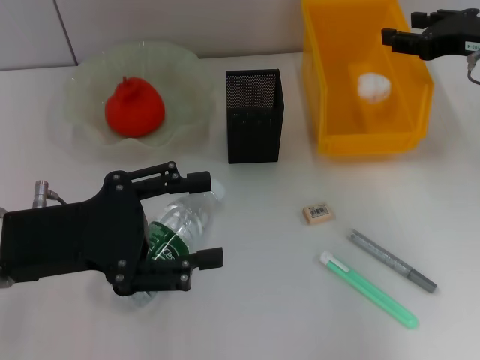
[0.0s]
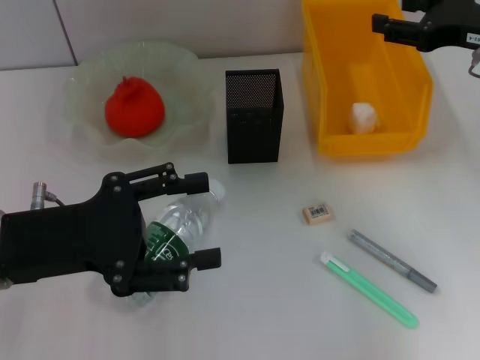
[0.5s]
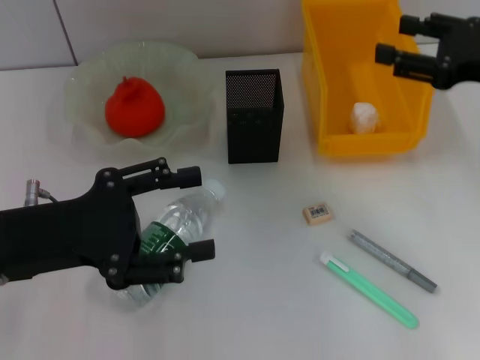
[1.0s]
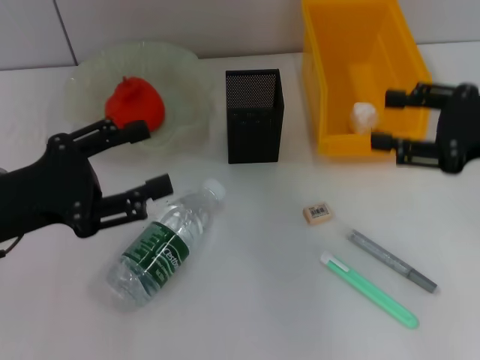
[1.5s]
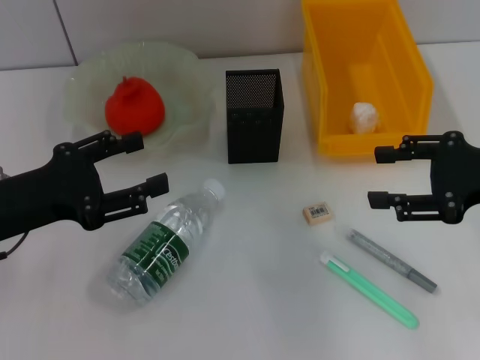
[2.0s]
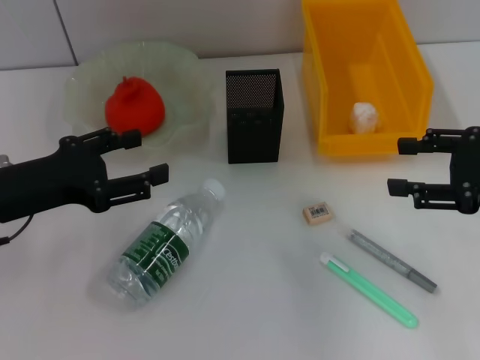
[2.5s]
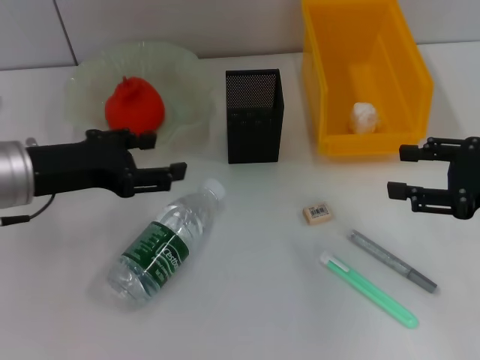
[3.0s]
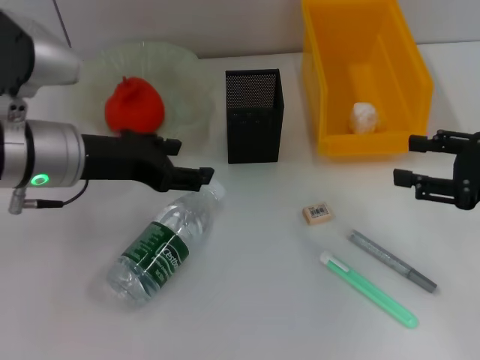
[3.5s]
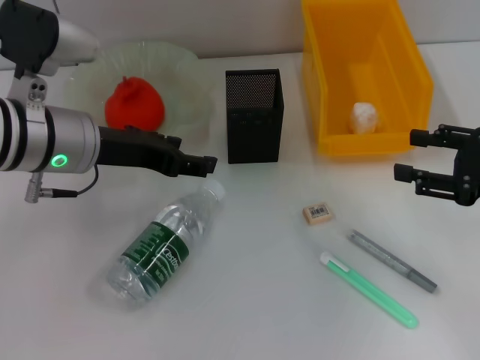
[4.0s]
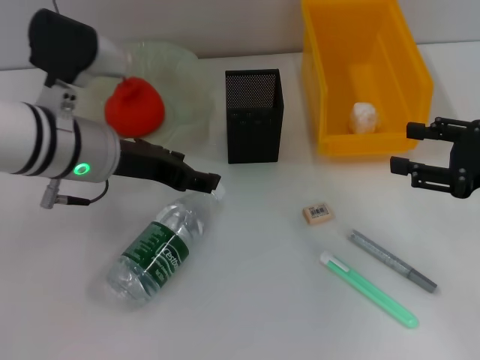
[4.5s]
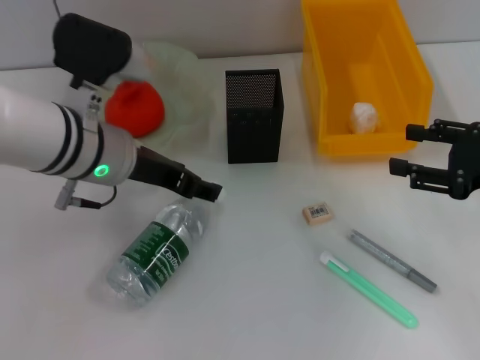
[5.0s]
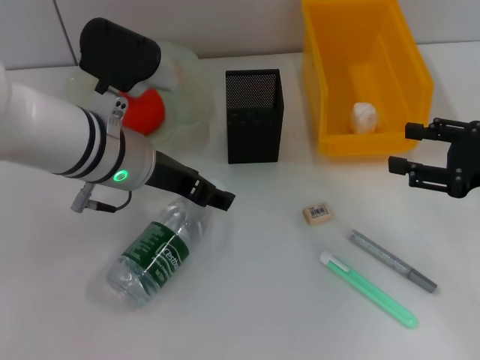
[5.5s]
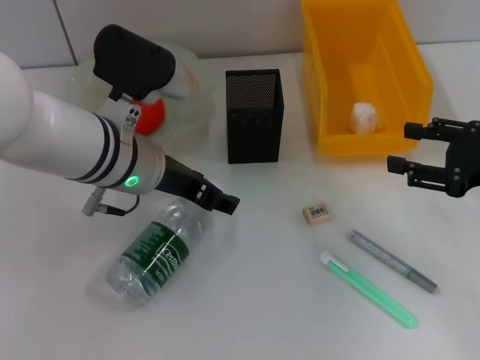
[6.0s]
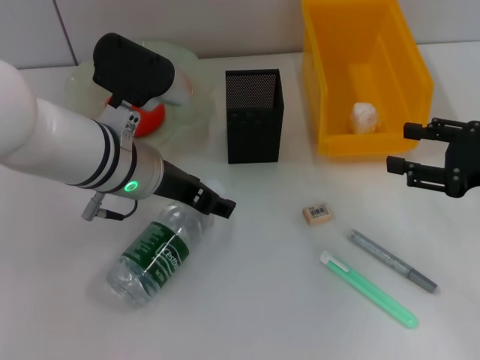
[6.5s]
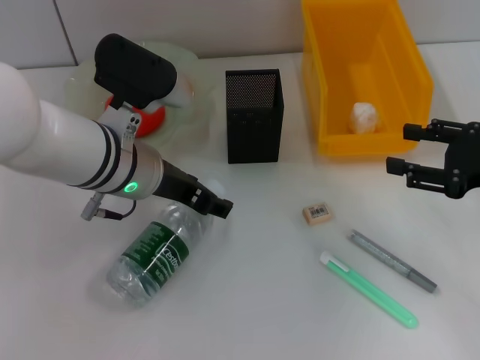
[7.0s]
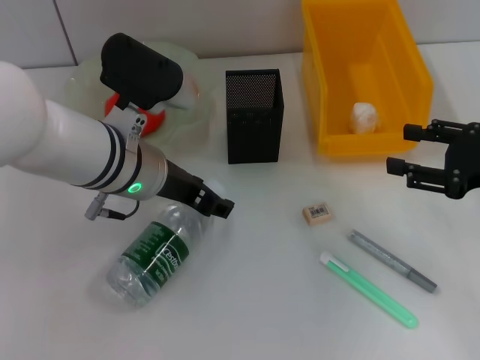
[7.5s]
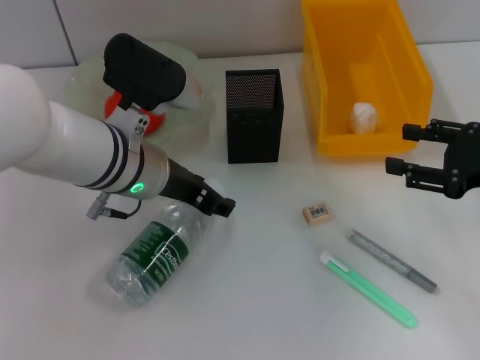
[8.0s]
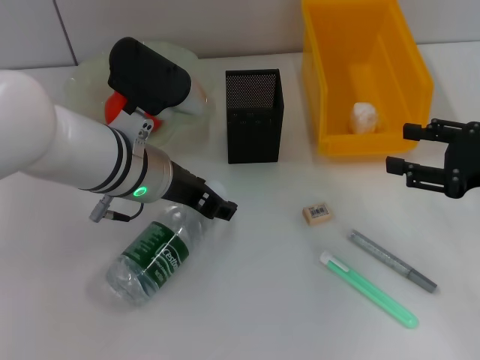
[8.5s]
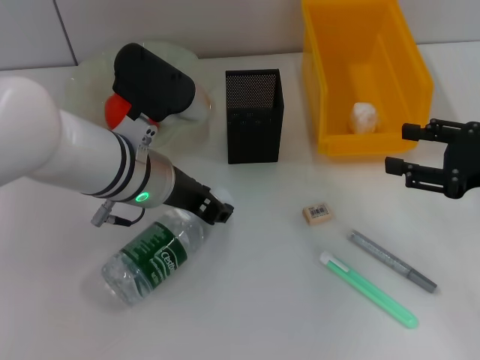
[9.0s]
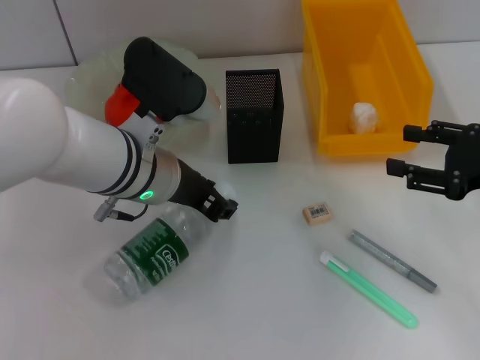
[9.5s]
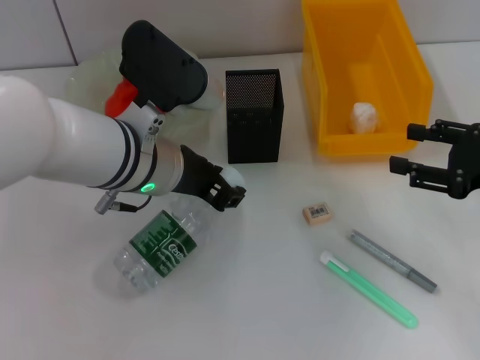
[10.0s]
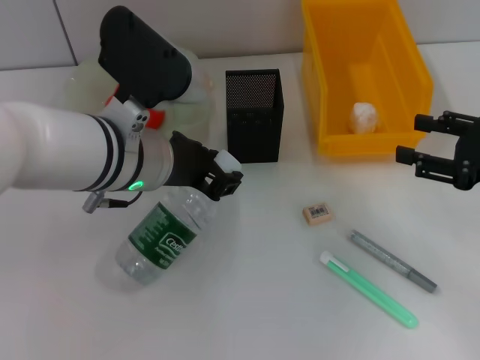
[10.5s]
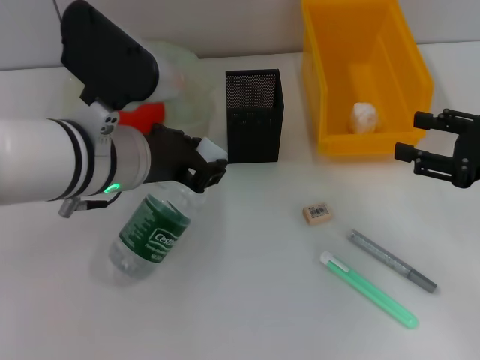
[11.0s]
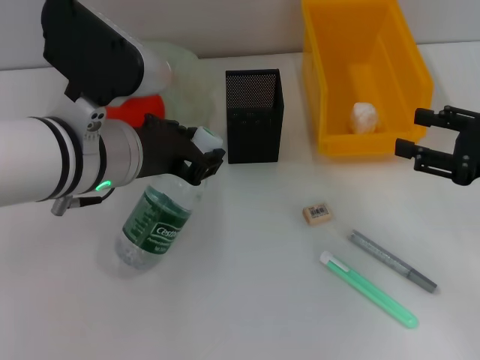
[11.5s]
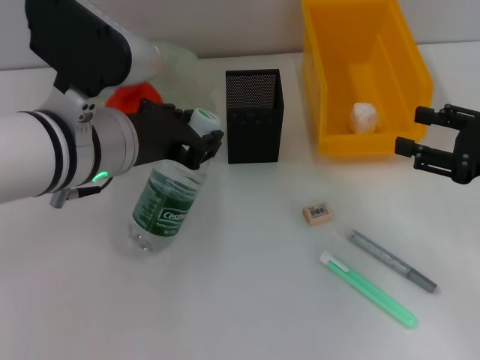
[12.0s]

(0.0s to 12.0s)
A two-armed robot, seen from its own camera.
Step, 0.5s - 9.5s: Grab the water bottle with the left hand.
0.0s - 2.0s: The right gripper is displaced backward by some 10 cm.
2.0s - 4.0s: The left gripper heads to the right and forward, covering approximately 10 cm.
4.0s - 6.0s: The left gripper moves to the right, roughly 5 cm.
6.0s - 8.0s: Neither gripper changes place.
8.0s - 10.0s: There are only small adjustments of the grippers.
10.0s - 12.0s: The left gripper shifts by roughly 5 cm.

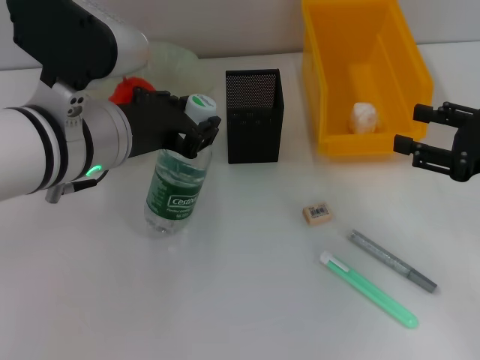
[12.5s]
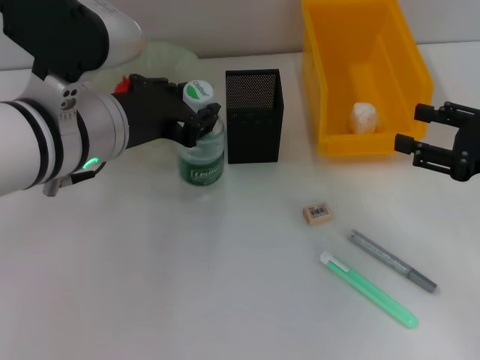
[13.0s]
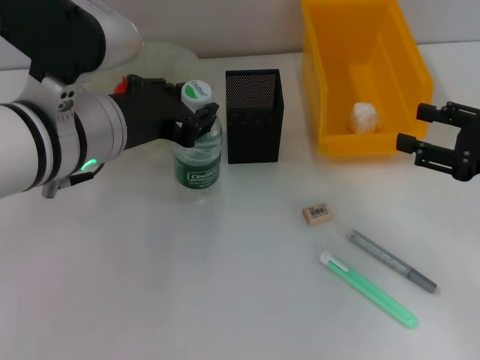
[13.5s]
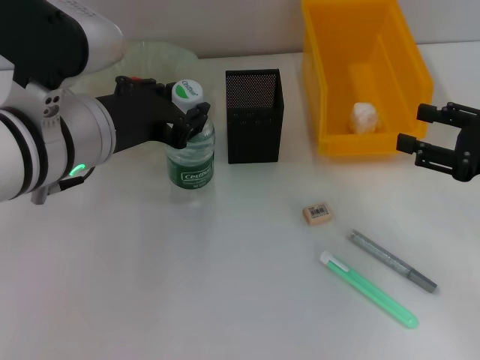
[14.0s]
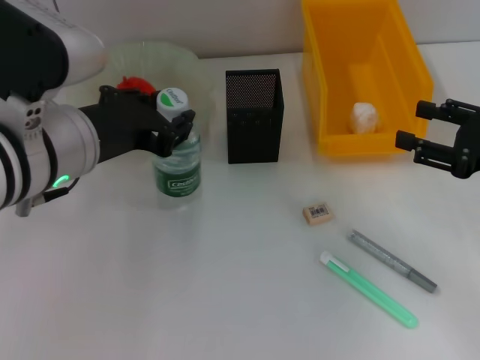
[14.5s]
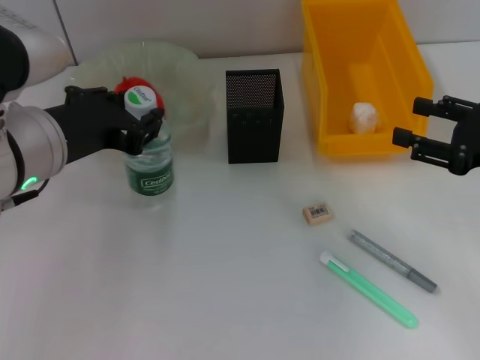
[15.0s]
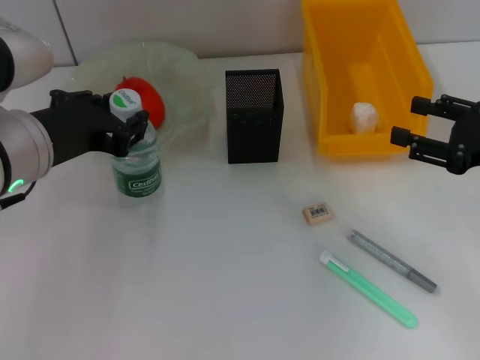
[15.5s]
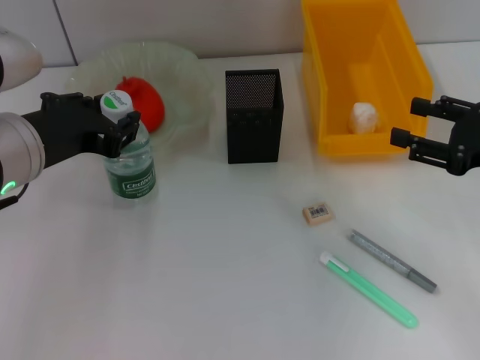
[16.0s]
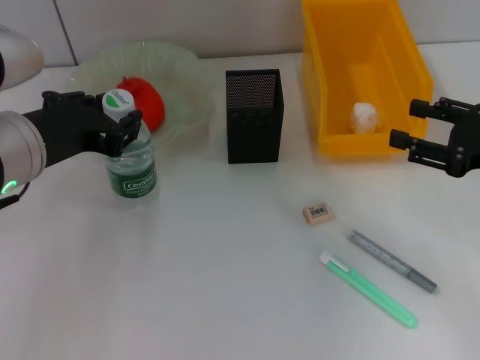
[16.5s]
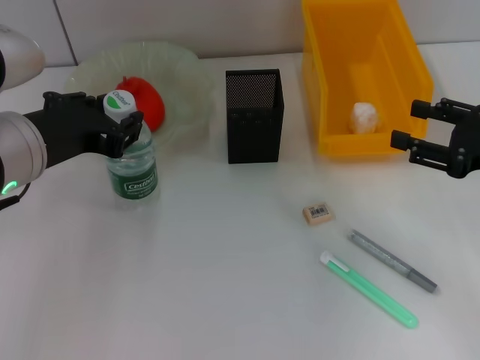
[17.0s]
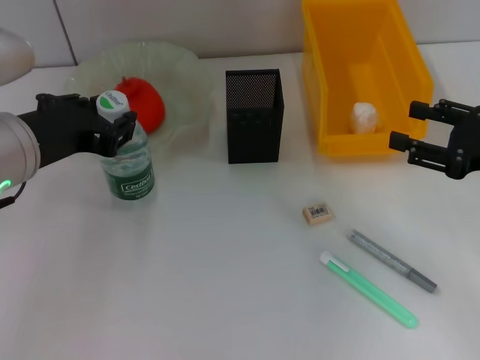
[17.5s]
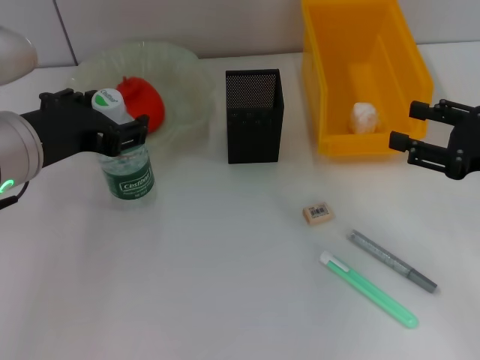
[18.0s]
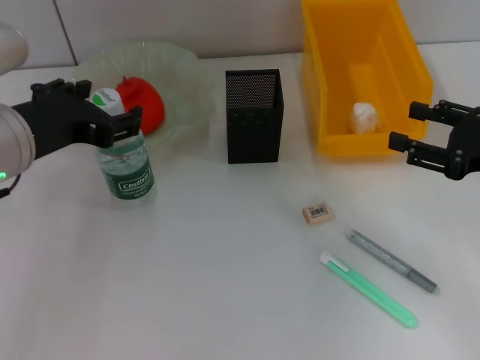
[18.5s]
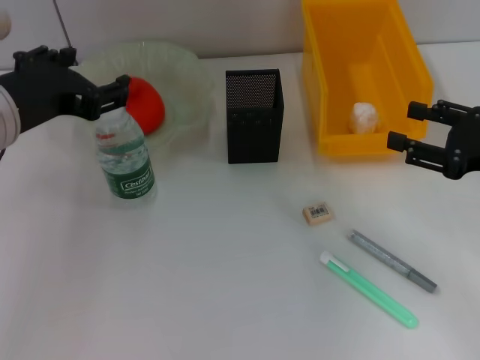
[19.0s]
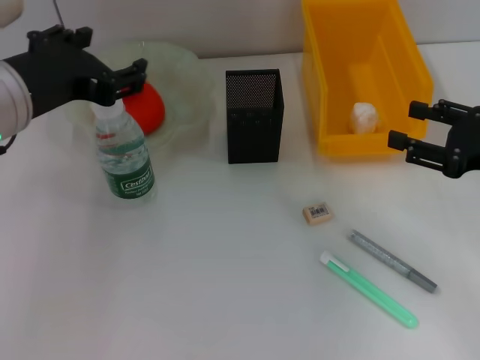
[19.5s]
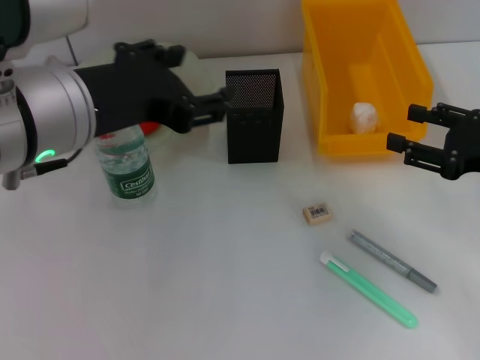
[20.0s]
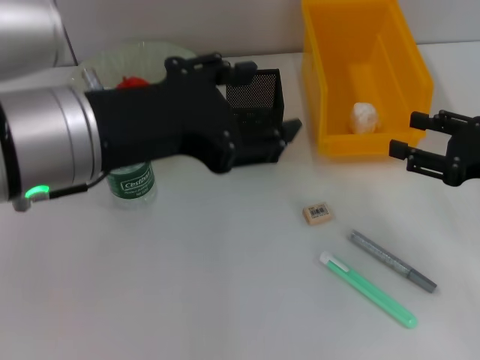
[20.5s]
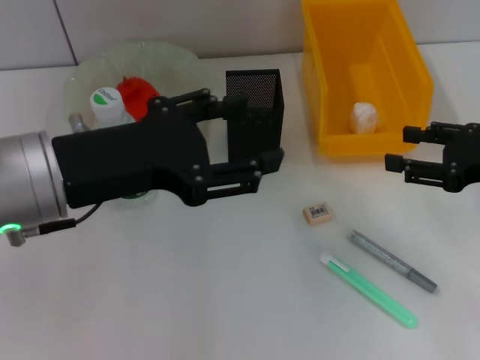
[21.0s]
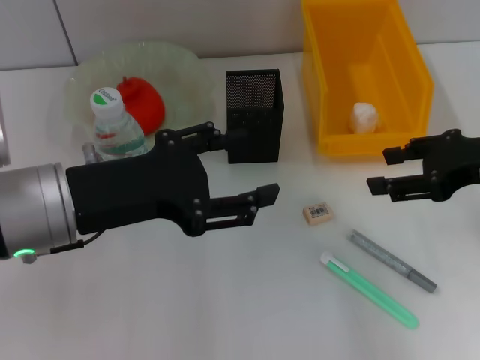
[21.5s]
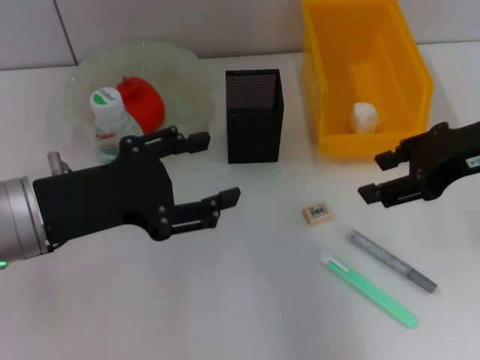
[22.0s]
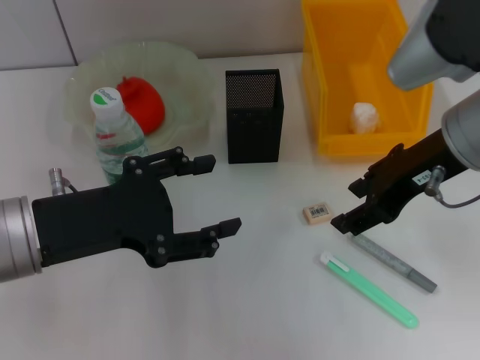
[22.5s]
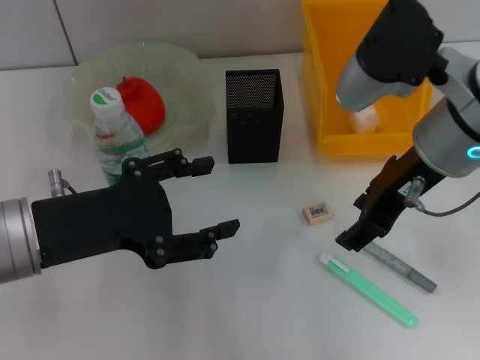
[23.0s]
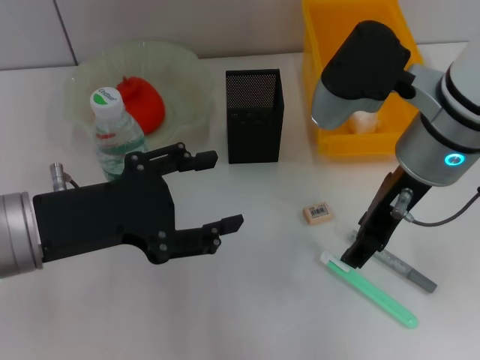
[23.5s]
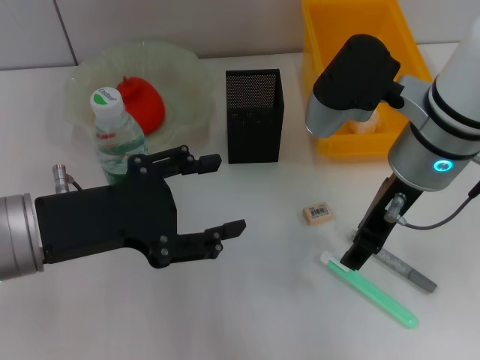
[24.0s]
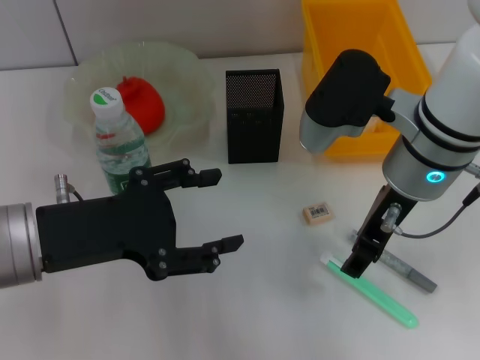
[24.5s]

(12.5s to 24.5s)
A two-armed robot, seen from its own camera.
Step, 12.5s - 18.5s: Place the water bottle on the table with the left hand.
12.5s - 16.5s: The grippers make only small movements.
16.5s - 18.5s: The left gripper opens up.
18.5s - 20.5s: The left gripper moves some 10 cm.
20.5s - 22.5s: The right gripper shifts approximately 20 cm to the left and upward. Meanwhile the left gripper shifts roughly 10 cm downward and to the left.
22.5s - 24.5s: The right gripper changes place by approximately 5 cm.

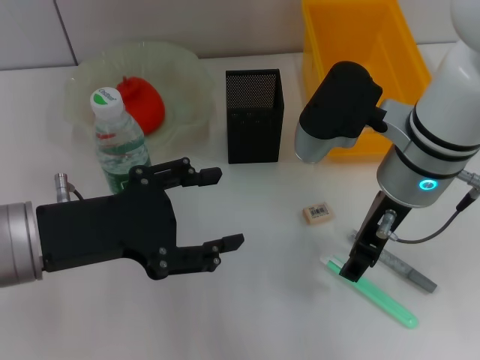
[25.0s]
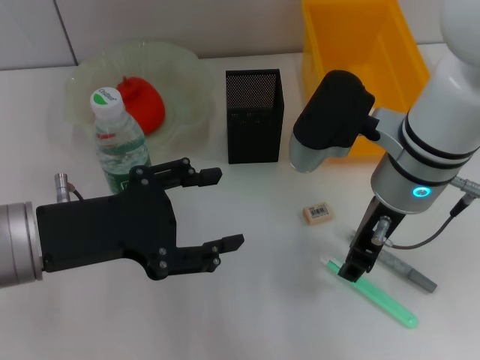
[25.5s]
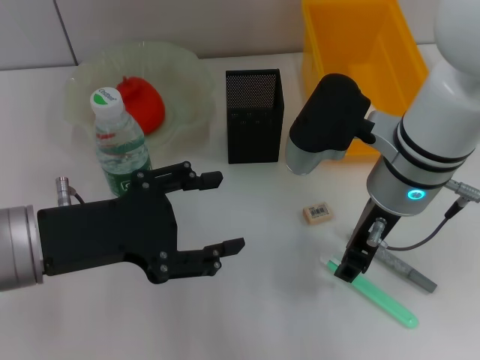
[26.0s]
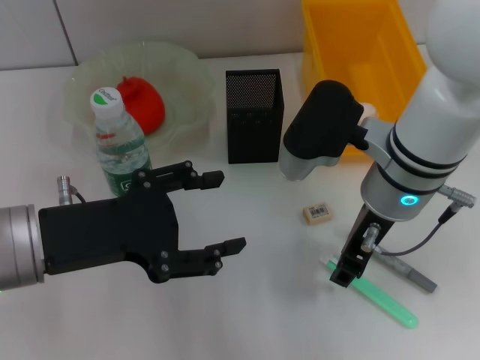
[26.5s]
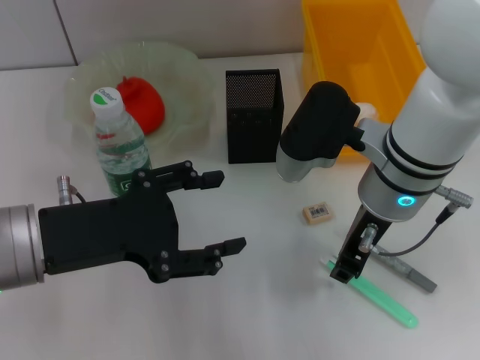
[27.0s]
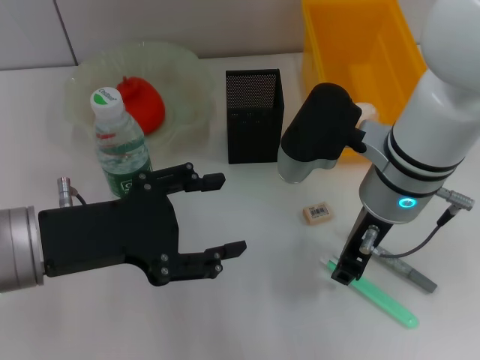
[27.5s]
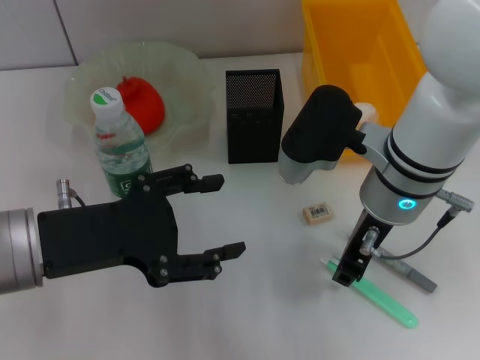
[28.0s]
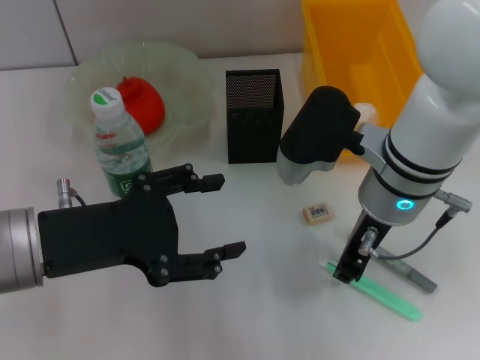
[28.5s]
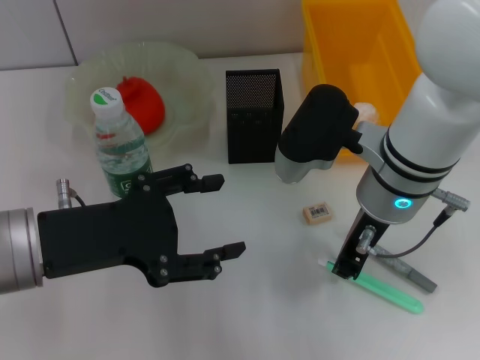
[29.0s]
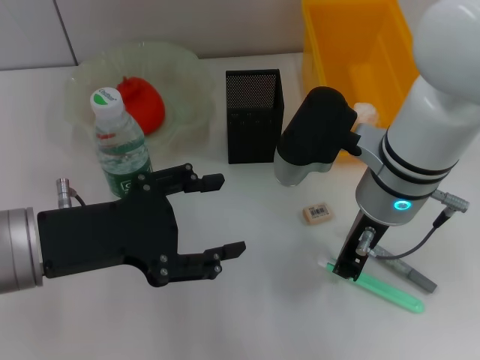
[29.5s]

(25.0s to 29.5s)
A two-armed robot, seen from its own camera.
25.0s - 27.0s: The right gripper closes up.
27.0s - 29.5s: Both grippers stay about where they are.
